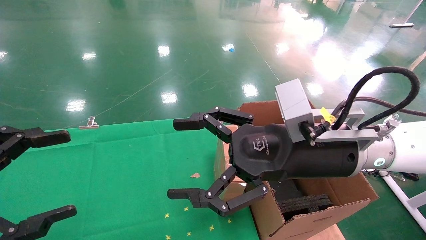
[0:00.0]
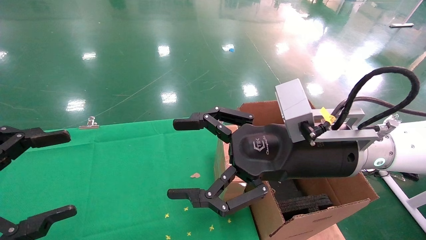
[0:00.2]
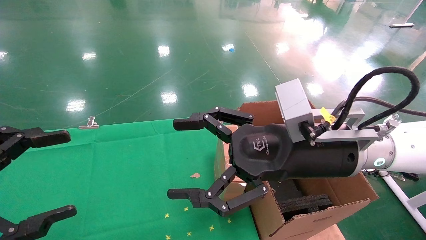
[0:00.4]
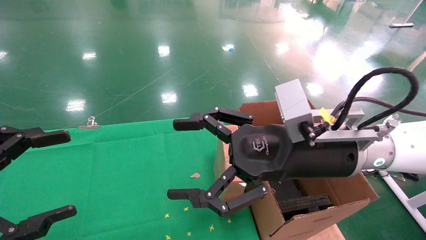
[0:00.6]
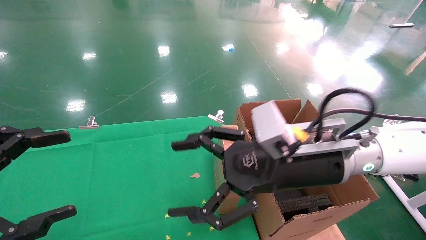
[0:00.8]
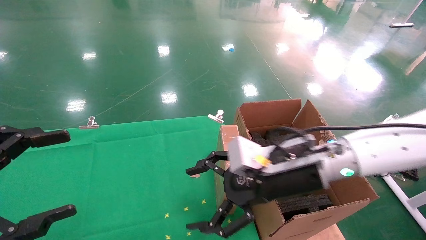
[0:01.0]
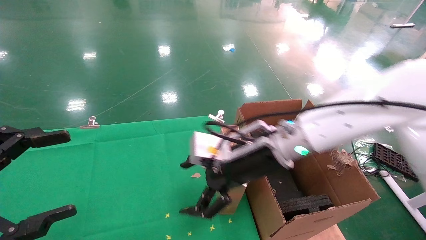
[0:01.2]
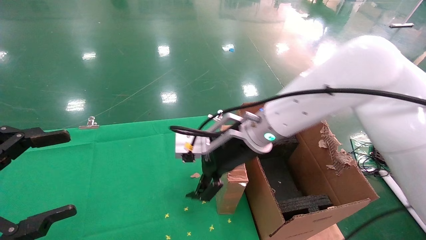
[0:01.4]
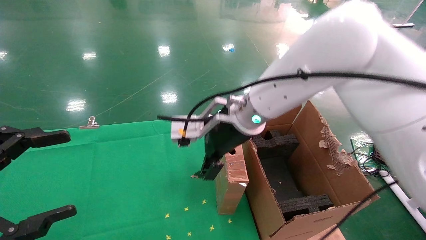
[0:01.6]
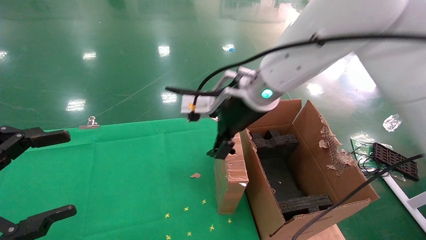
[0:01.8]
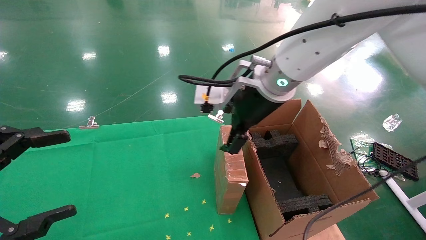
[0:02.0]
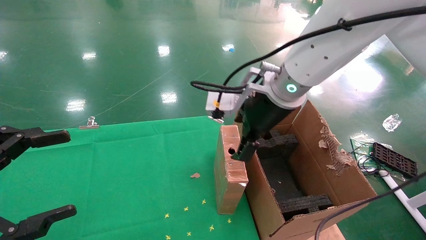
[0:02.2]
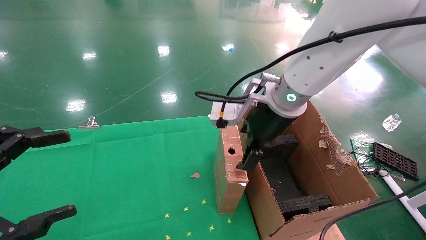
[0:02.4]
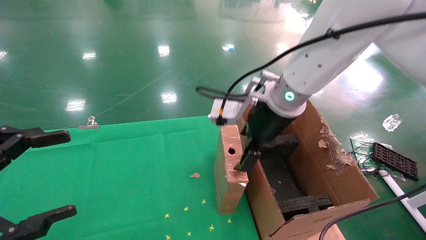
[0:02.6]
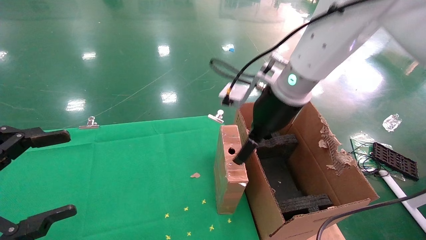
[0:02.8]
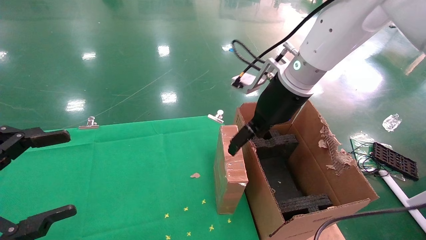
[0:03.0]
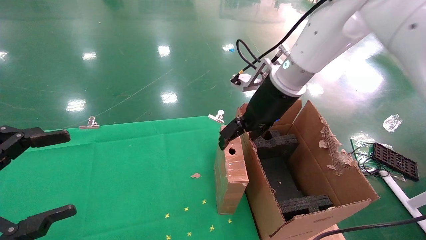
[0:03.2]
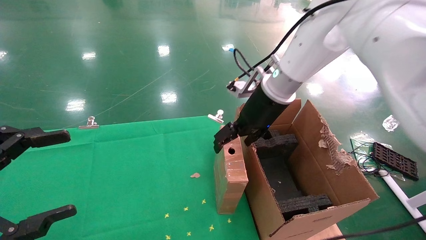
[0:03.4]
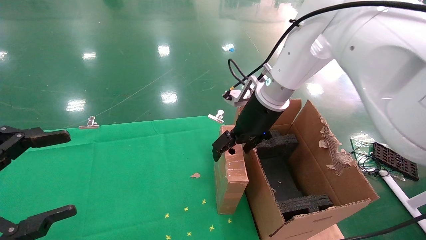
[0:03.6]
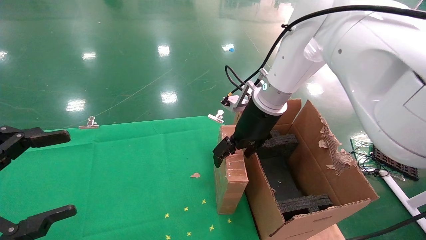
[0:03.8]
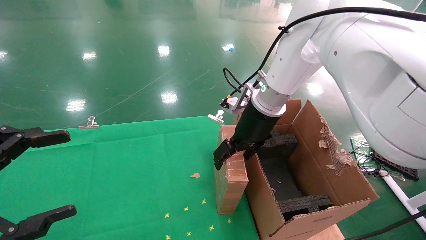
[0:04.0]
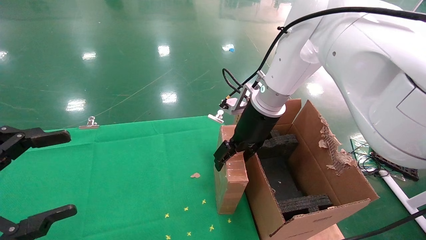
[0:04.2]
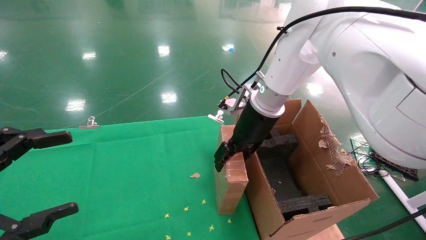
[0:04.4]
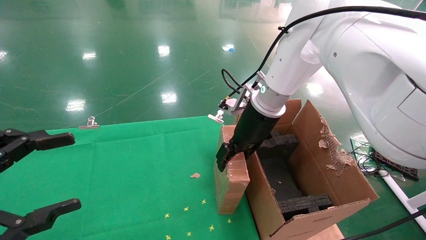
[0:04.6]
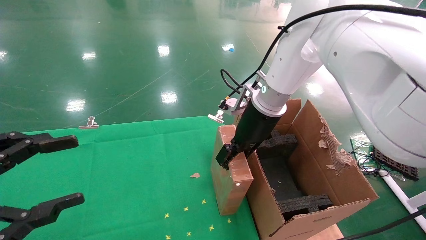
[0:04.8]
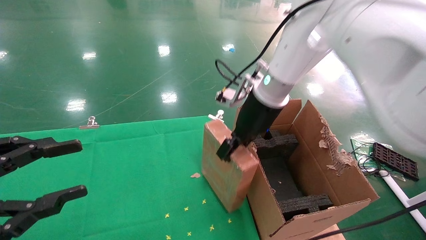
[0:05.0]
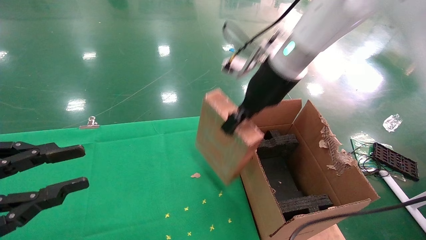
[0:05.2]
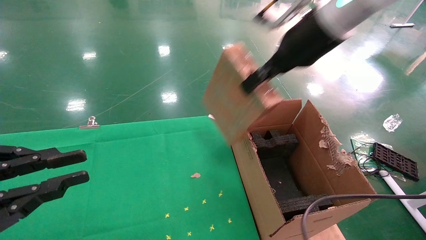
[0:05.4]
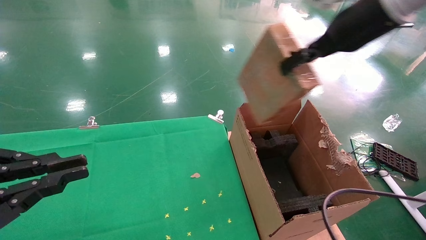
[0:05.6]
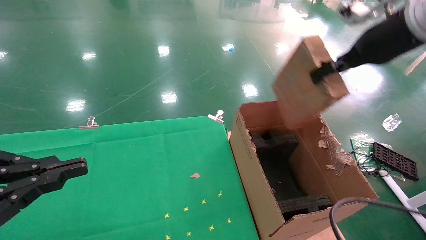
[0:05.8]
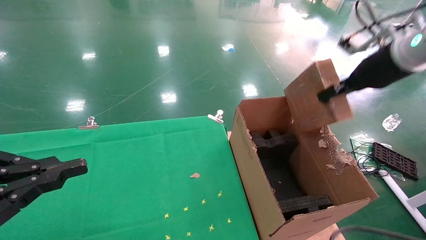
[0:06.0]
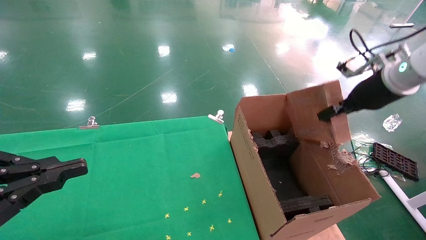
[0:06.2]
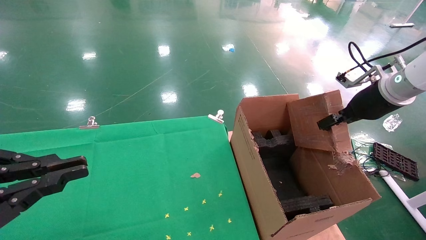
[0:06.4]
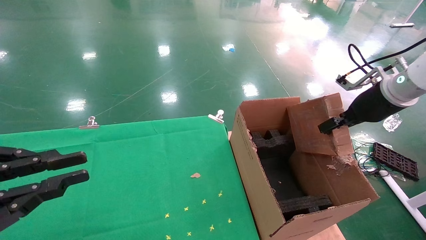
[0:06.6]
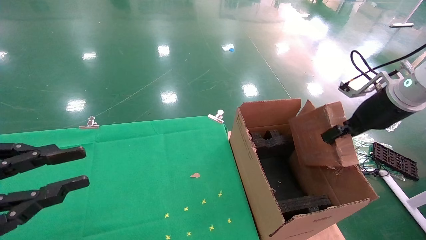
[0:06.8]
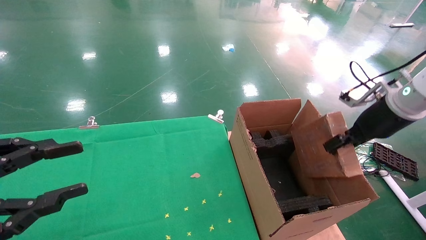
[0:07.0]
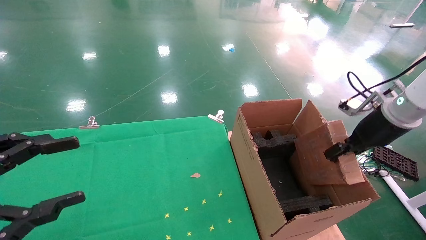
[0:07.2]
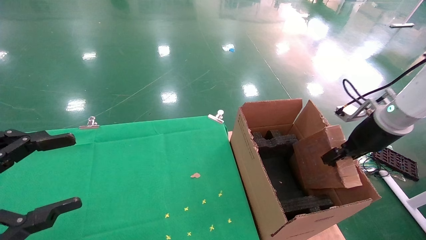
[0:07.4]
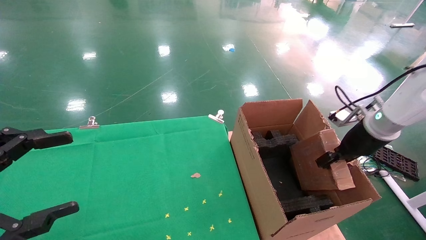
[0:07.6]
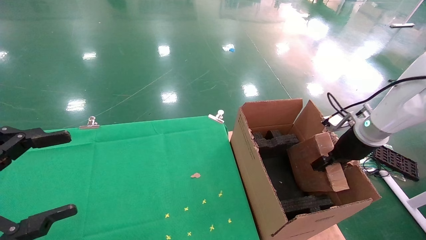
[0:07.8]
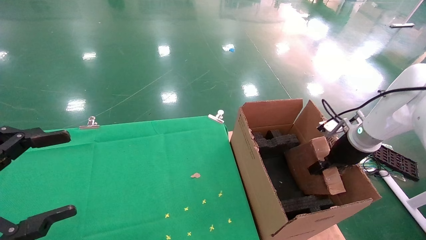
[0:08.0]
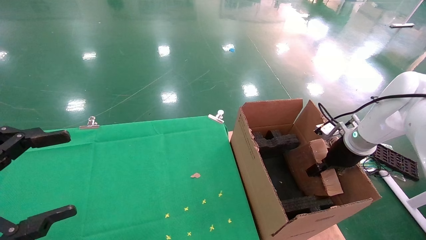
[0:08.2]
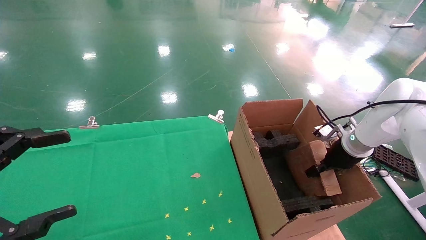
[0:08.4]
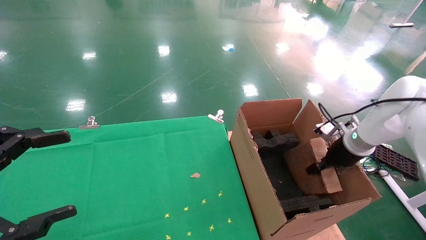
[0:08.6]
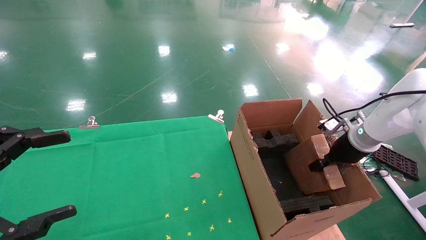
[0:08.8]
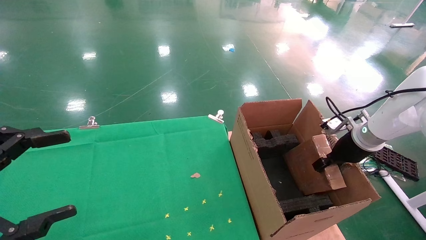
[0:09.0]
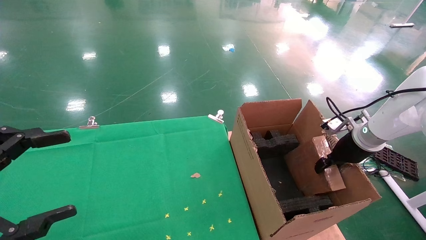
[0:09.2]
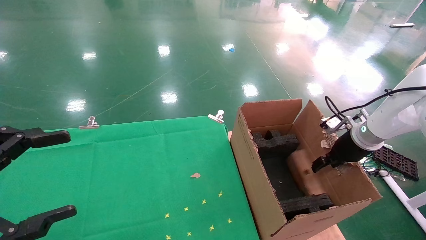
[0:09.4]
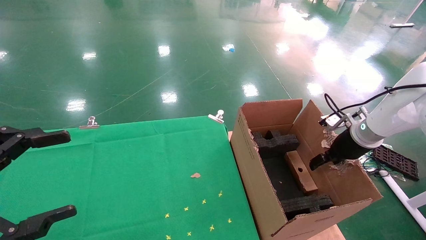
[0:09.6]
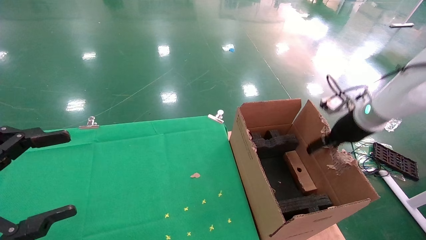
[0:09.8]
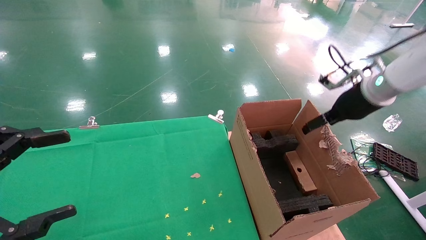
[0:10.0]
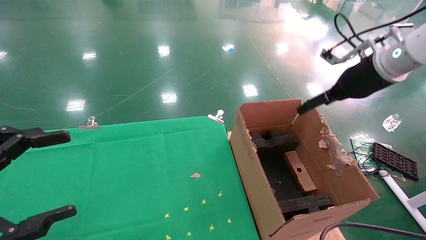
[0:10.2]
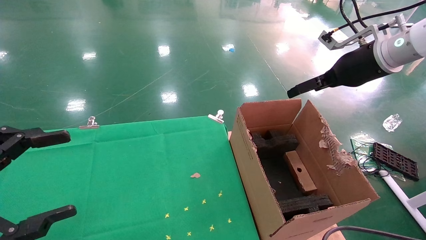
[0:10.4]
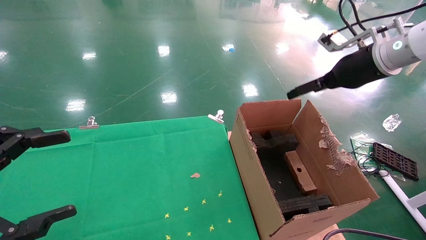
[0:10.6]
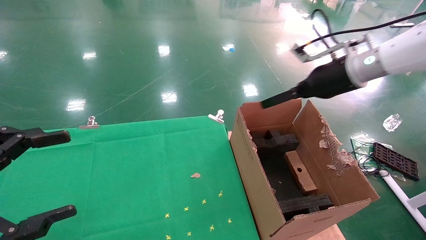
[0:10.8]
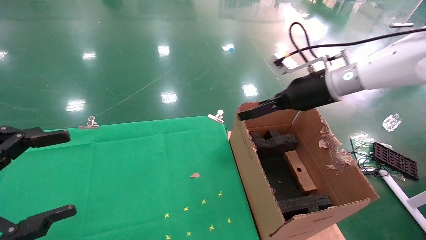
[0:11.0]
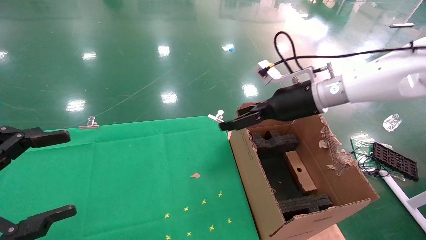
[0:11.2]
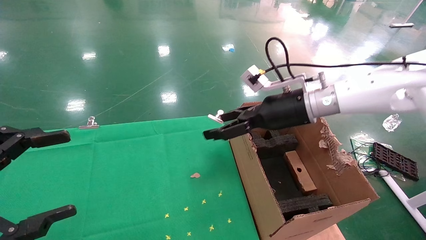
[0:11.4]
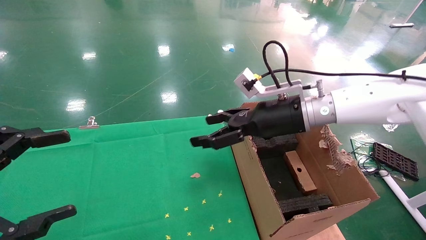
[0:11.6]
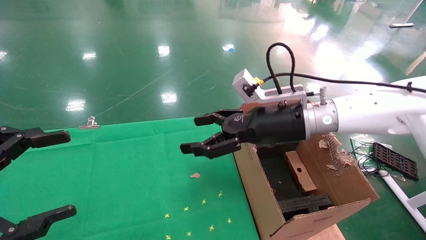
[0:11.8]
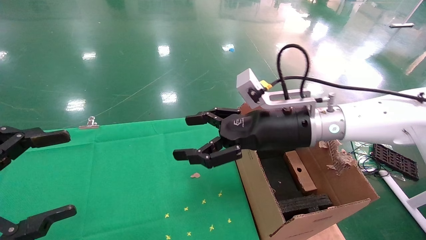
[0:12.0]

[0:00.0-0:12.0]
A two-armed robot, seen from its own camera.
Task of the whole recording: using a robotic arm to pick up a cardboard box and palace it the carton.
Step, 0:00.8 to 0:04.8: Pick up the mouse and the power cord paper box.
Step, 0:05.0 to 0:09.4: Place the mouse and the power cord paper box into the container.
0:00.0 to 0:01.6: The right gripper moves forward and to the left, roughly 15 cm.
0:01.6 to 0:03.0: The right gripper goes roughly 10 cm to the right.
0:03.0 to 0:04.4: The right gripper ends up some 5 cm from where it was.
0:04.4 to 0:06.0: The left gripper closes its fingers; the right gripper moves to the right, about 25 cm, and closes up.
0:06.0 to 0:07.6: The right gripper travels downward by some 15 cm. The left gripper opens.
0:09.0 to 0:10.4: The right gripper travels upward by approximately 20 cm, and opens its fingers.
0:10.4 to 0:12.0: The right gripper moves to the left and downward, roughly 20 cm.

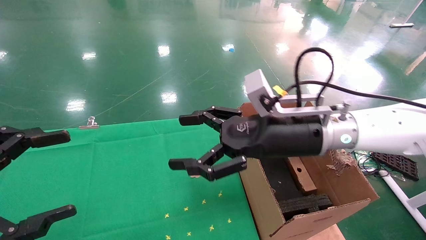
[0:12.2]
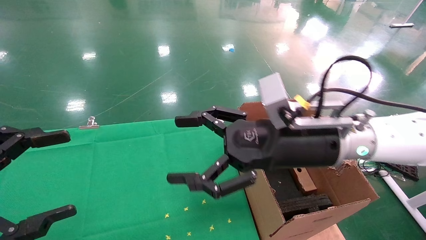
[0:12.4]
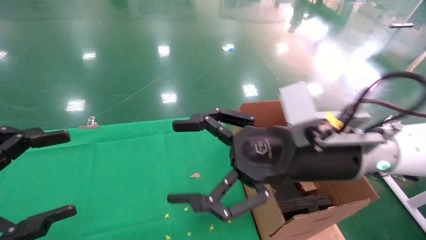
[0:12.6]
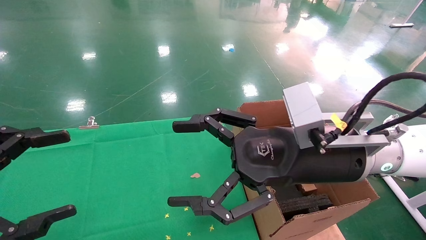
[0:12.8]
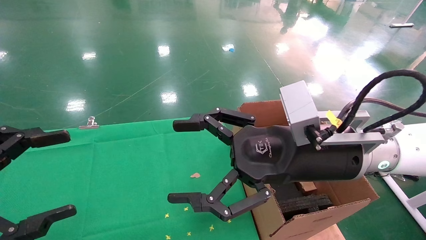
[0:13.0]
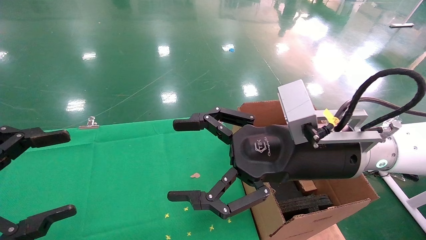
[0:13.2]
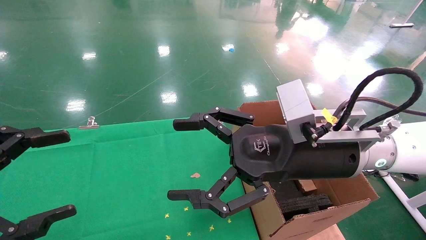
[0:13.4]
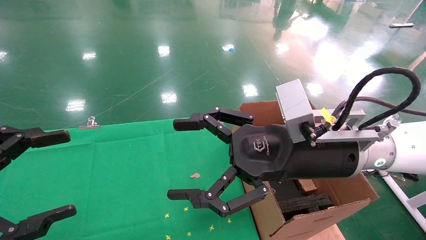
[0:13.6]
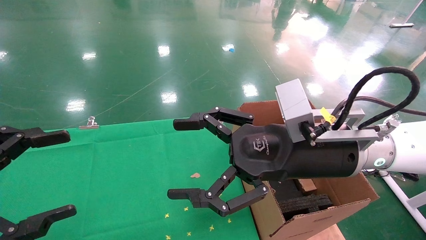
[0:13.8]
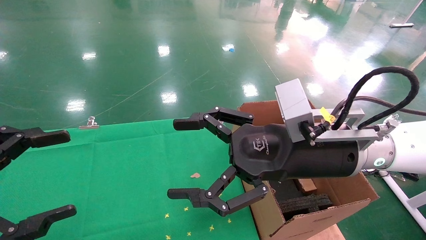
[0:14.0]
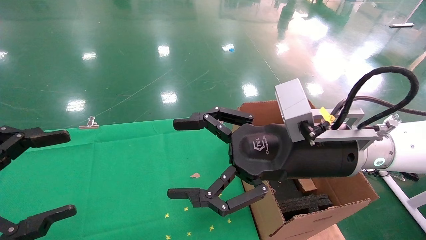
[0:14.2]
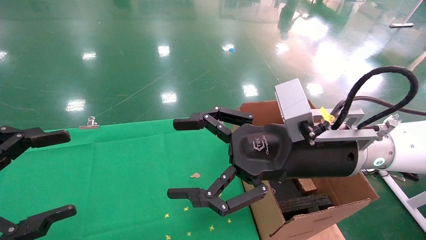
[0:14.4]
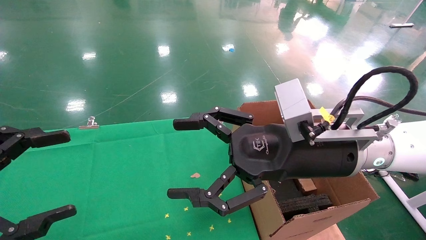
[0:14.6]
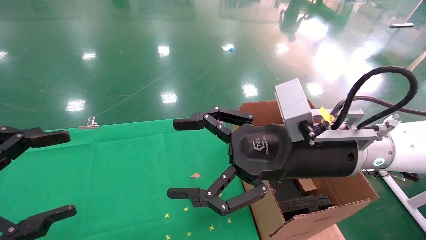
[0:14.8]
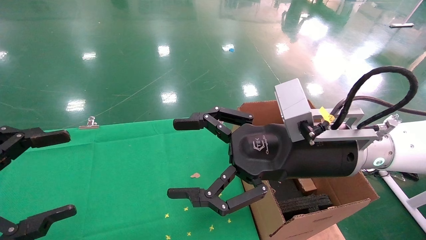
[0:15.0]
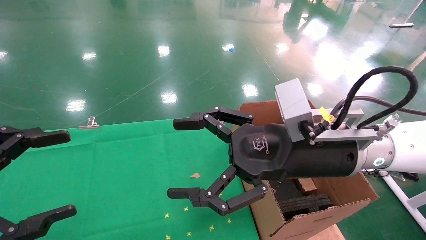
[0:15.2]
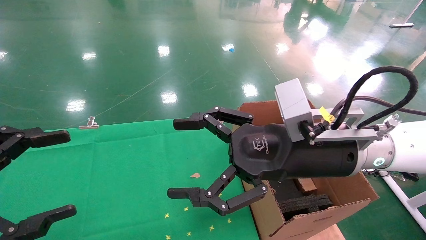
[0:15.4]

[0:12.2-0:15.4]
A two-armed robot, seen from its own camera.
Task of the whole recording: using a robotic arm to pick up a cardboard box and palace it the carton.
0:12.2 to 0:13.8: The right gripper shifts roughly 5 cm backward.
0:13.8 to 0:15.4: Neither gripper changes place.
